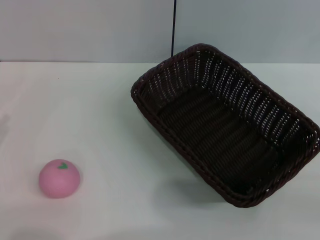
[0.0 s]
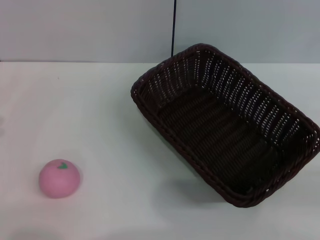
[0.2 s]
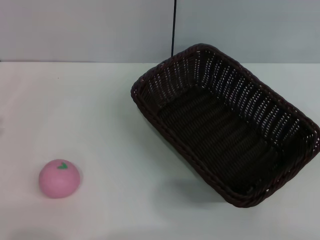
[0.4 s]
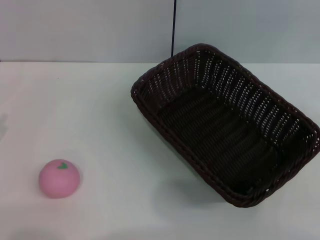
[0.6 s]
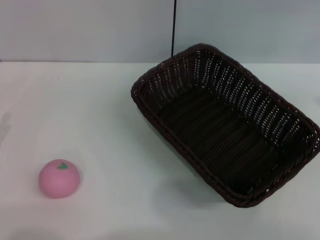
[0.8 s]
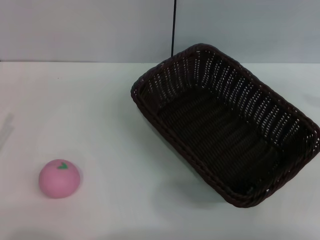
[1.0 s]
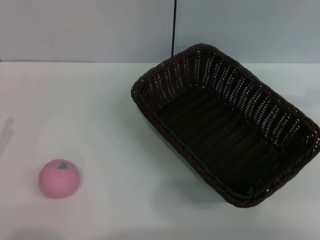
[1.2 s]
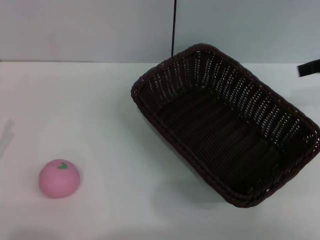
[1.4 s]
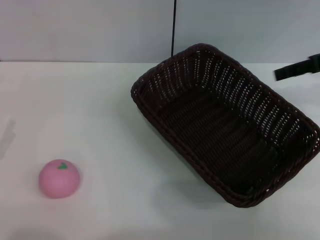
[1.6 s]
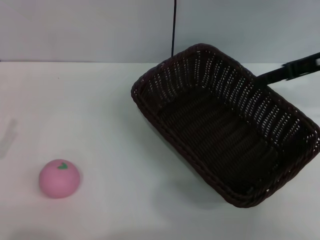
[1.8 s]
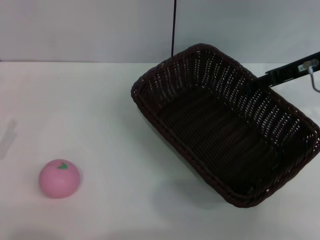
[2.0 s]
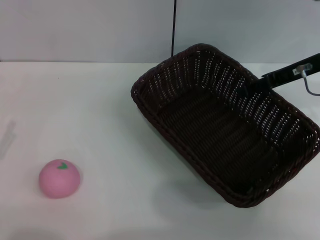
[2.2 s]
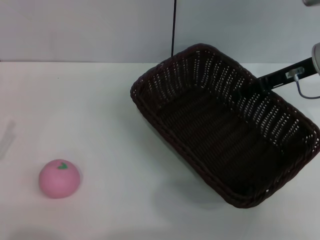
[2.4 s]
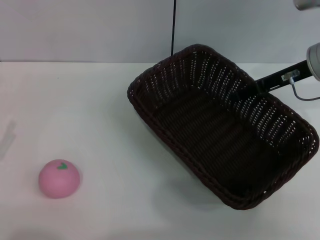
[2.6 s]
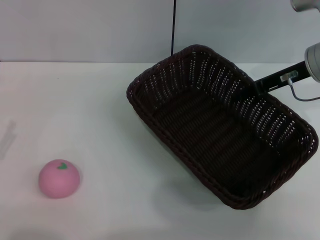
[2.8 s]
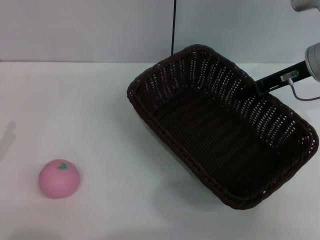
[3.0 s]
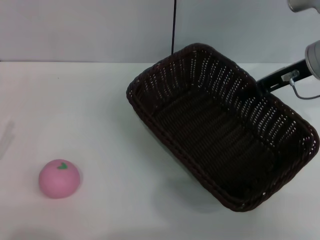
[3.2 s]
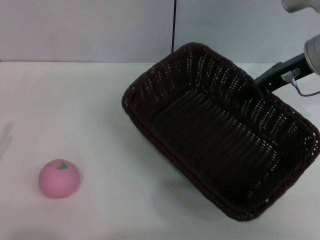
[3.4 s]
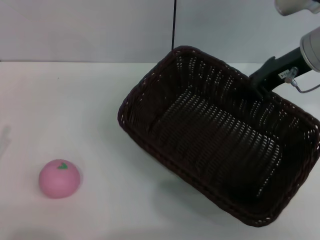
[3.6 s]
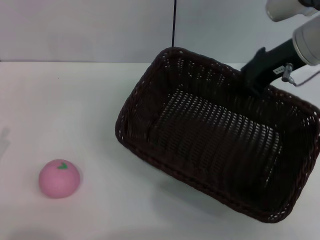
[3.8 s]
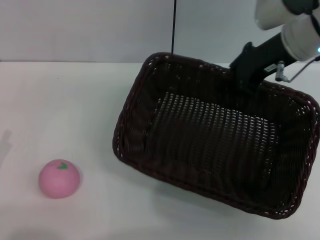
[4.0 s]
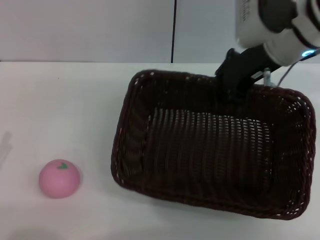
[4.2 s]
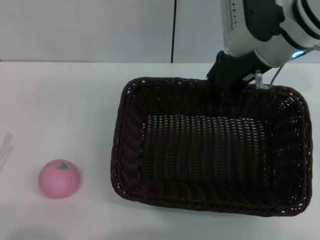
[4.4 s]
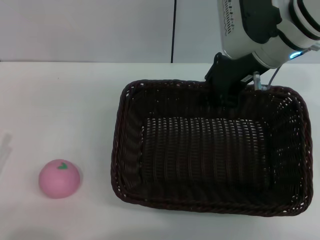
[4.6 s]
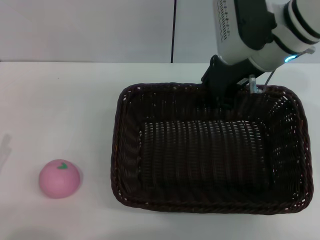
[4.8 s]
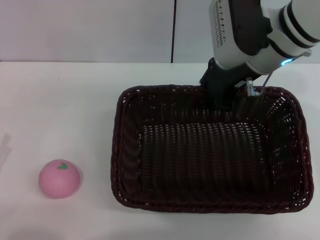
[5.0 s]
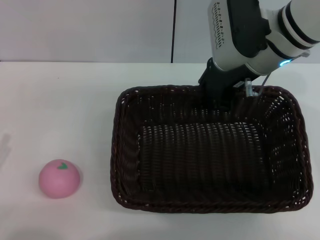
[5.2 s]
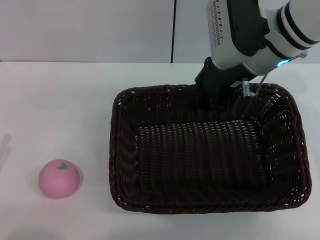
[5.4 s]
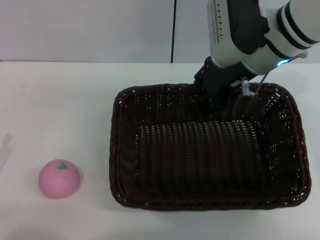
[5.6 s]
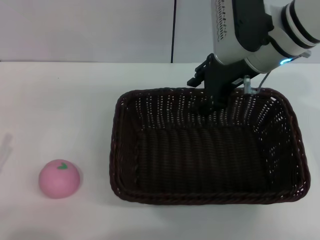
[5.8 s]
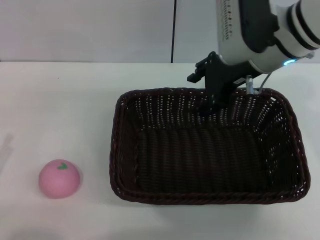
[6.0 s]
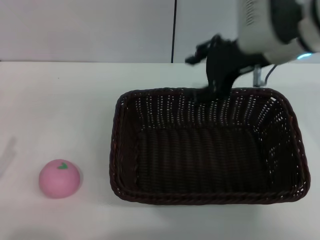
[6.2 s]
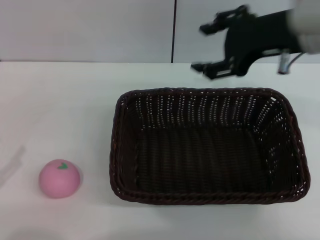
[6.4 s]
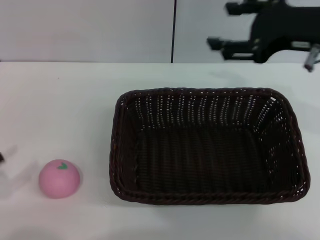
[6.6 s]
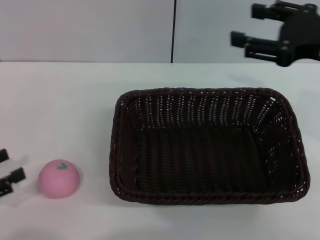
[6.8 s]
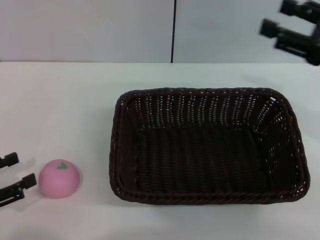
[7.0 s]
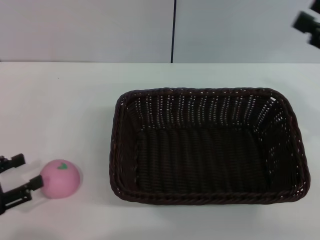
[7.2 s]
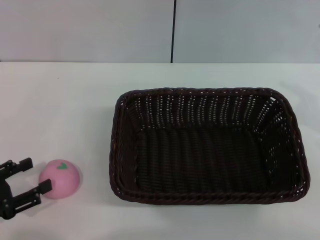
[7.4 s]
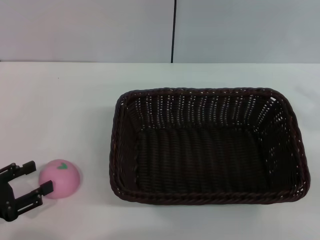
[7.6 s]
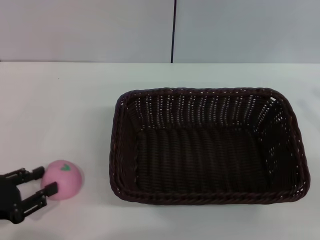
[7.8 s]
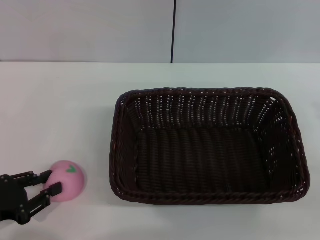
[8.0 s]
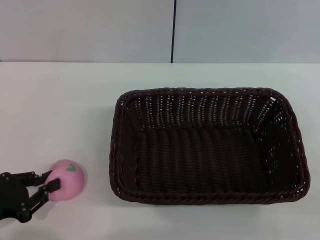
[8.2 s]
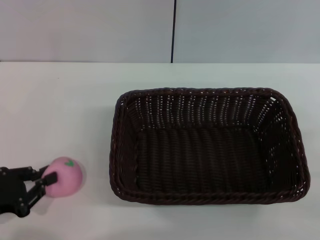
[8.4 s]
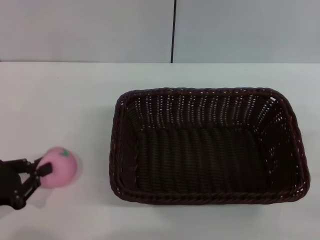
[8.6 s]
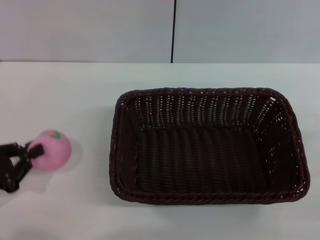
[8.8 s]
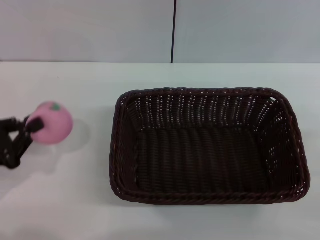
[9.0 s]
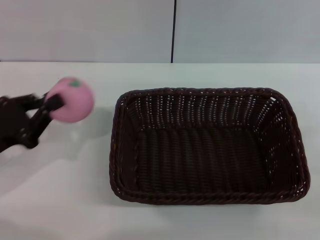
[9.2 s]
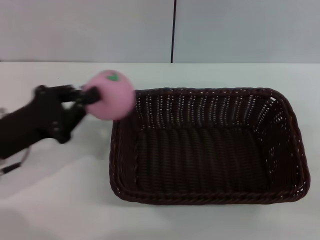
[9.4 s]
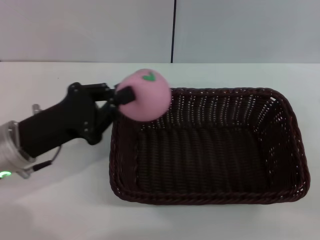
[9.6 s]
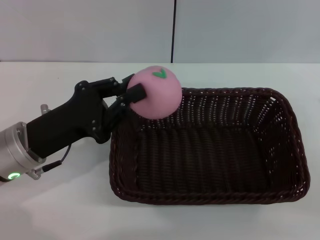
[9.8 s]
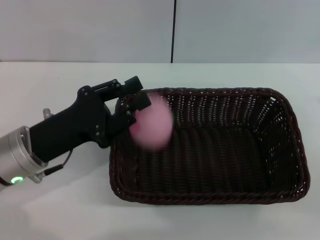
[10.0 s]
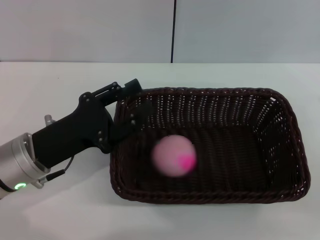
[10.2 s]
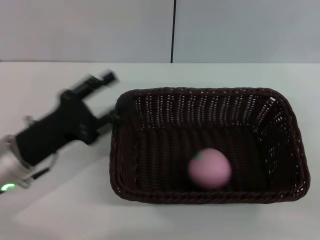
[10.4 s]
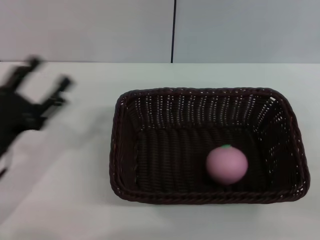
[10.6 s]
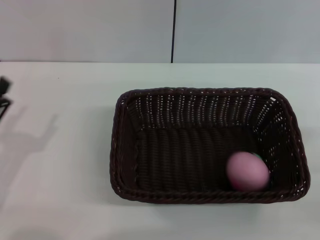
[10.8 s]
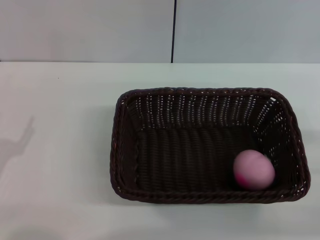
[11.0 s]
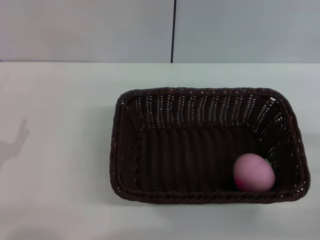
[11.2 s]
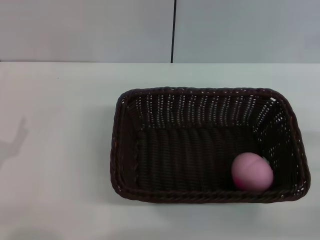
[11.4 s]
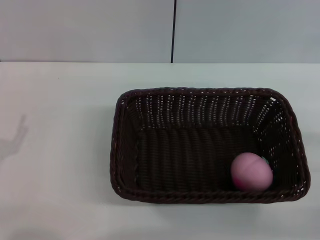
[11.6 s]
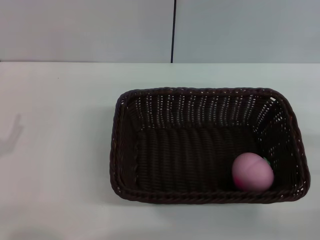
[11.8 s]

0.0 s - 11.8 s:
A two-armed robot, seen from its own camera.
Step, 0.0 s - 4.0 s: Pick up the dark basket with the right gripper.
Step, 4.2 s - 6.0 s: Place the dark basket in the center of view with the right gripper.
Step, 6.4 s - 9.2 s: Pick up the peach with the left gripper.
Step, 9.4 s - 10.6 s: Place the peach into the basket with the left gripper.
0.0 s - 1.4 s: The right gripper heads forward, upward and to the left, covering about 25 cm.
1.4 s - 3.0 s: The right gripper goes some 10 cm to the left and downward, and closes its fingers.
3.0 s - 4.4 s: The right gripper moves to the left, roughly 10 cm.
4.4 s - 6.0 s: The right gripper opens up.
6.0 s - 7.4 s: The right gripper shifts some 25 cm to the right and backward.
7.4 s - 8.8 s: The left gripper closes.
8.8 s - 10.4 s: The left gripper is displaced to the right and forward by about 10 cm, and opens up.
10.4 s - 11.8 s: The left gripper heads to the left and backward, covering roughly 10 cm, and opens up.

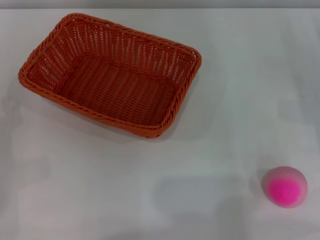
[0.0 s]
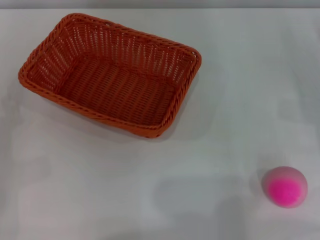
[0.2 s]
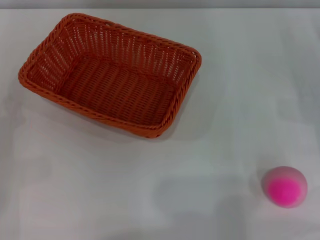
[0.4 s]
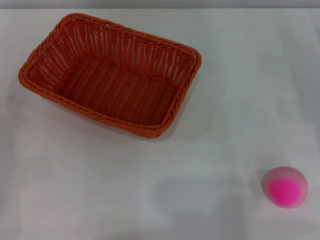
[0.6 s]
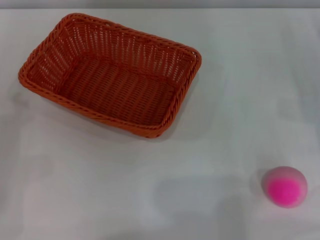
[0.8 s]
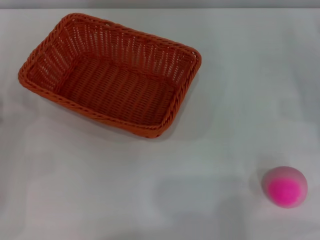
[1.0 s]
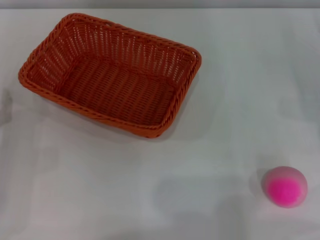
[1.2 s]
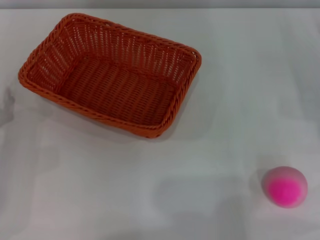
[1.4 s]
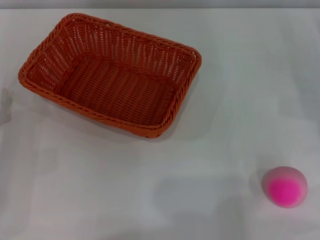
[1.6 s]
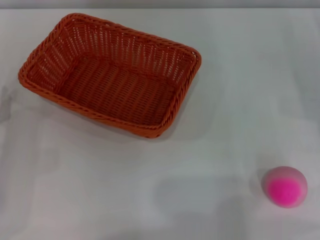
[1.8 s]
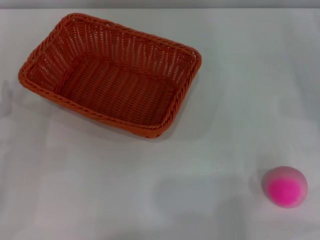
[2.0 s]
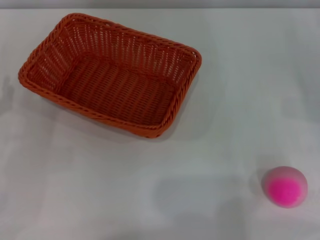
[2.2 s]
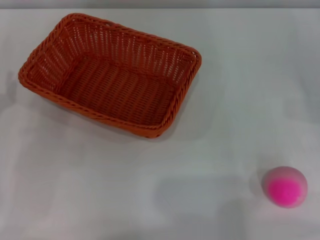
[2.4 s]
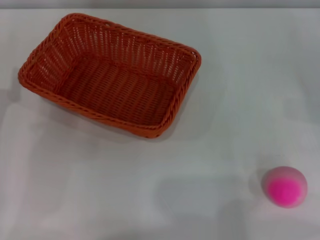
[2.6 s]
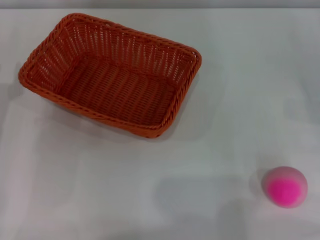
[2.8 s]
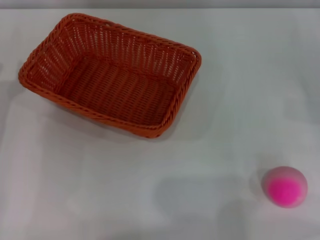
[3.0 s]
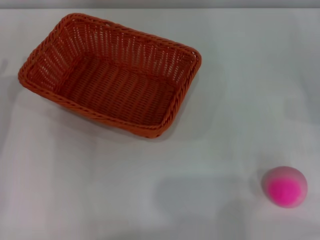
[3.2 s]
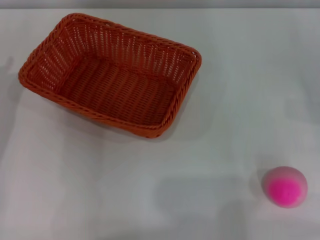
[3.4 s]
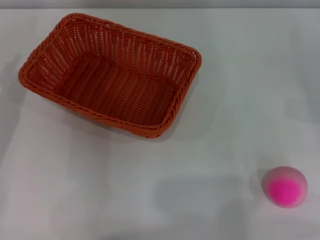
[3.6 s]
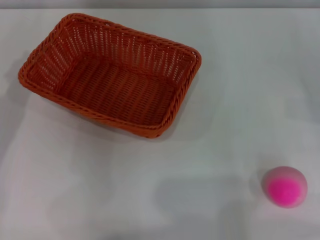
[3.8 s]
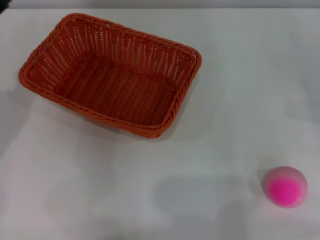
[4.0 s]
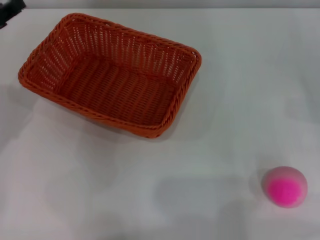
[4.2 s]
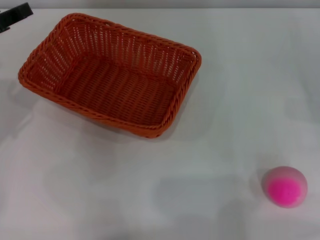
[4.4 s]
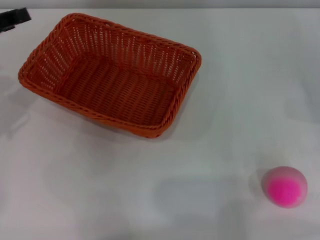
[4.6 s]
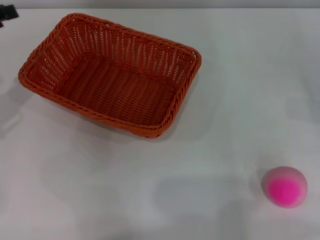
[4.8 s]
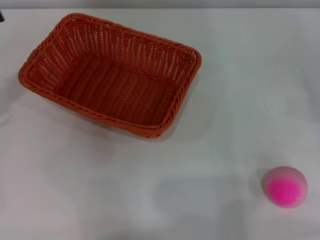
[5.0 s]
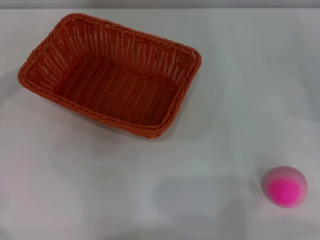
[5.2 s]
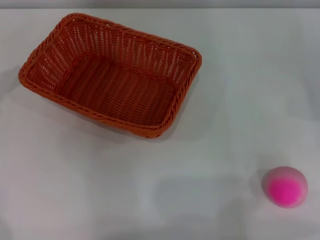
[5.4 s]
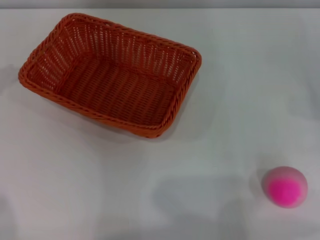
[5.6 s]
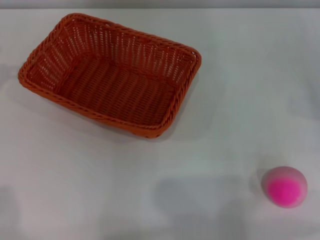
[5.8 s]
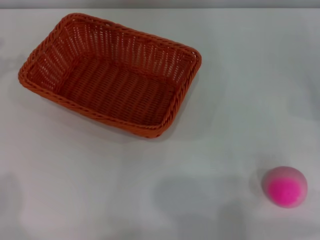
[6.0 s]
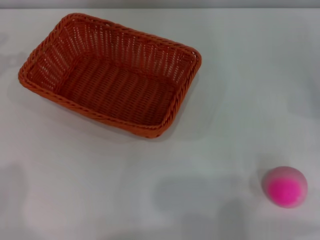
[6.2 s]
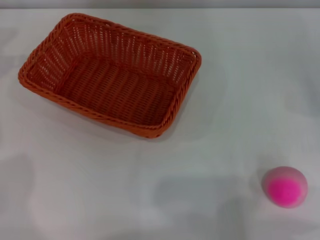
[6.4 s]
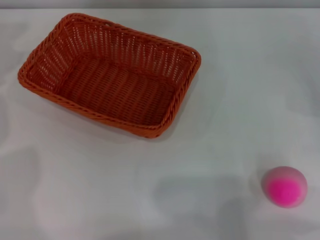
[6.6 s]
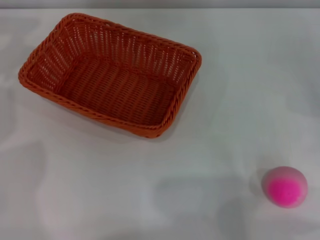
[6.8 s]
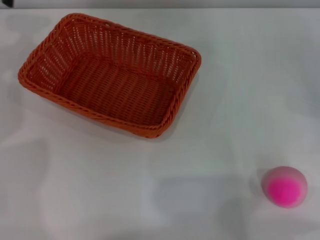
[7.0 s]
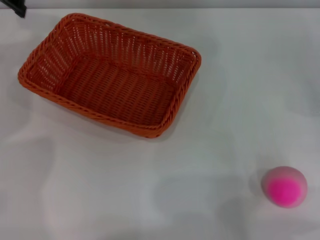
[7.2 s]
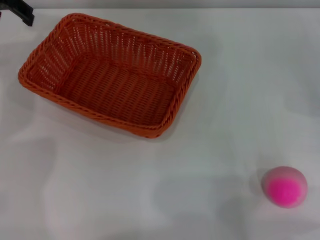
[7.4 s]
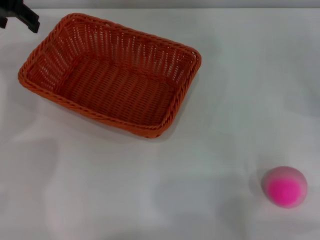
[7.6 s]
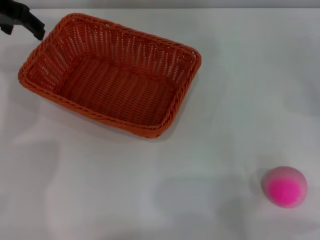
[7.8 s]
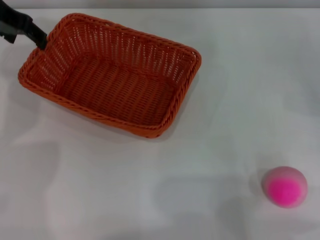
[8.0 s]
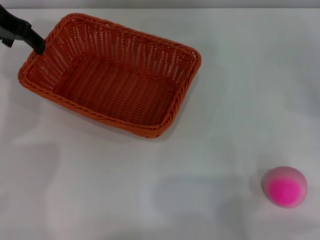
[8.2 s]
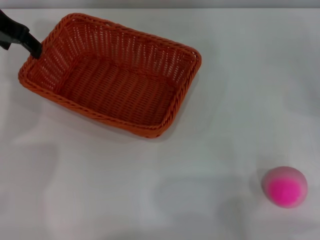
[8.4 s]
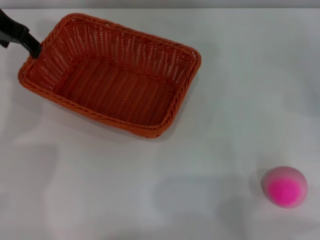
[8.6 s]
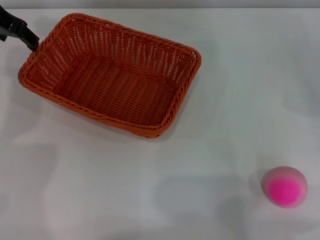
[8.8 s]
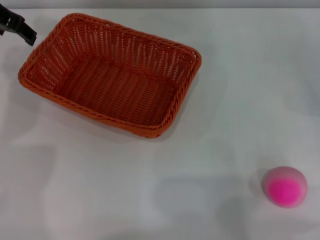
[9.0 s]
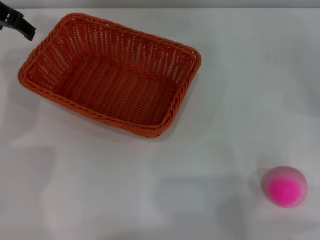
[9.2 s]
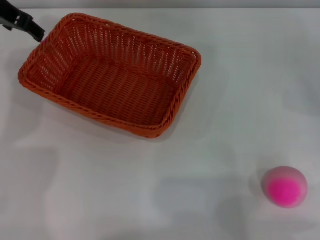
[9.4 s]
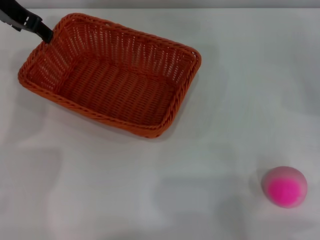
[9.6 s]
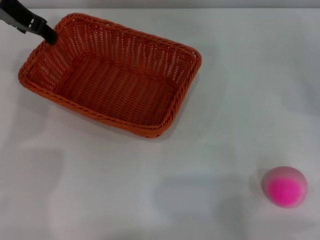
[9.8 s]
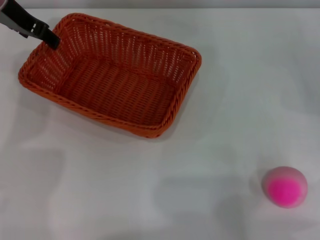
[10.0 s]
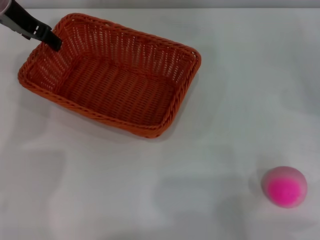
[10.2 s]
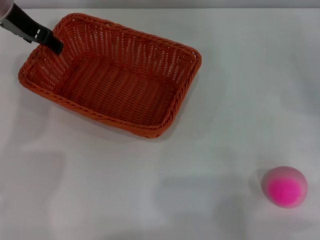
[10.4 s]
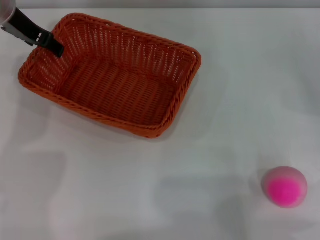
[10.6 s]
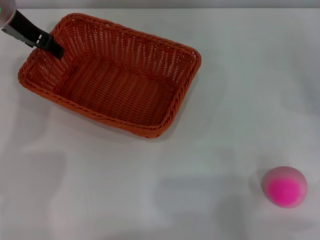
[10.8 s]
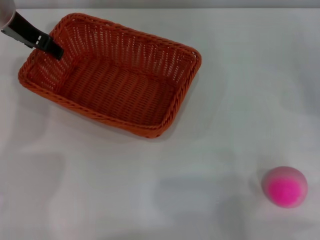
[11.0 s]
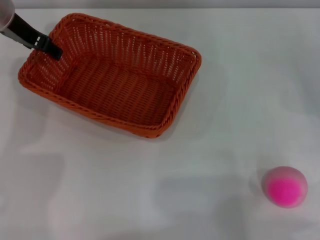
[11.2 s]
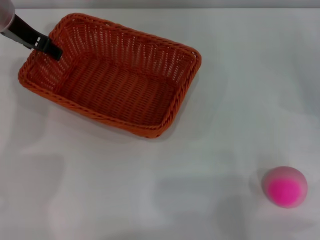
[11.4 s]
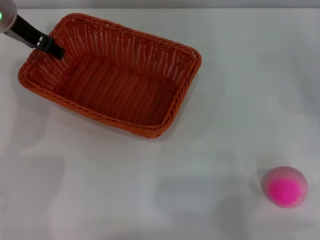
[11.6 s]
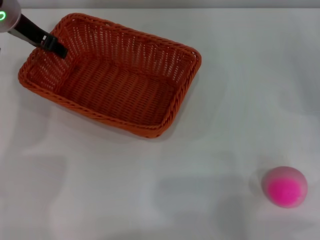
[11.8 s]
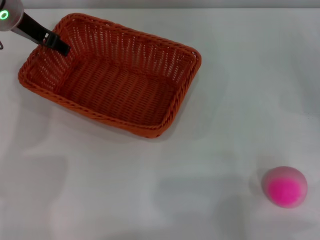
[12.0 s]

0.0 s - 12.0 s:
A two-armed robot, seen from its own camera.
3.0 s - 4.4 s: The left gripper is displaced upward by about 5 cm.
4.4 s - 6.0 s: The left gripper shifts roughly 15 cm upward, forward and to the left.
6.0 s - 7.6 s: The left gripper goes some 10 cm to the right and forward, and opens up.
7.6 s - 9.0 s: The grippers stay close to where they were, moving slightly.
9.0 s - 12.0 s: There are only small adjustments of the grippers.
